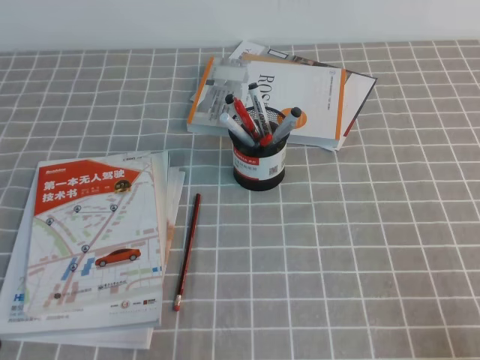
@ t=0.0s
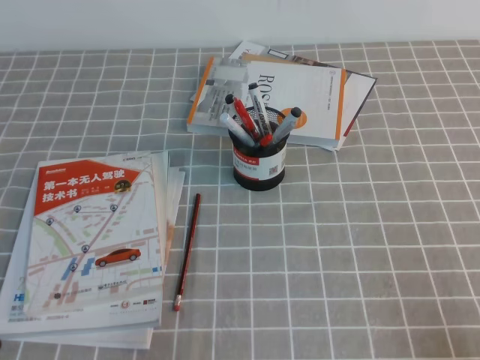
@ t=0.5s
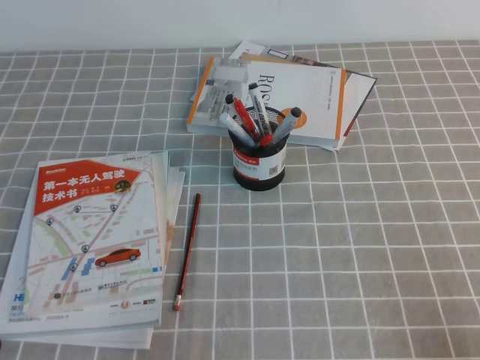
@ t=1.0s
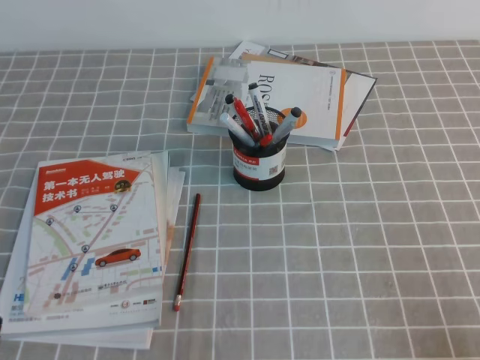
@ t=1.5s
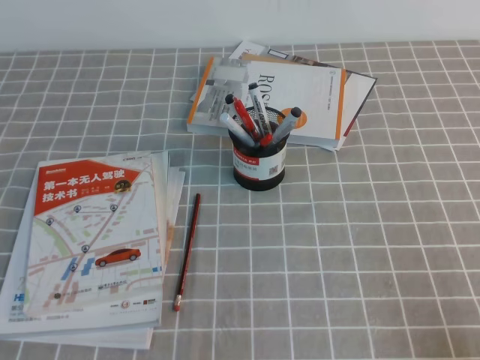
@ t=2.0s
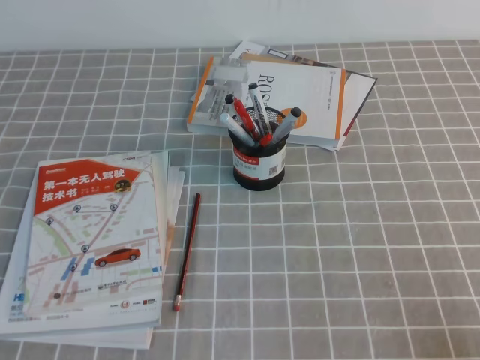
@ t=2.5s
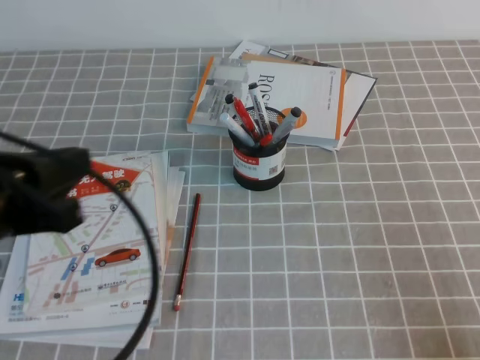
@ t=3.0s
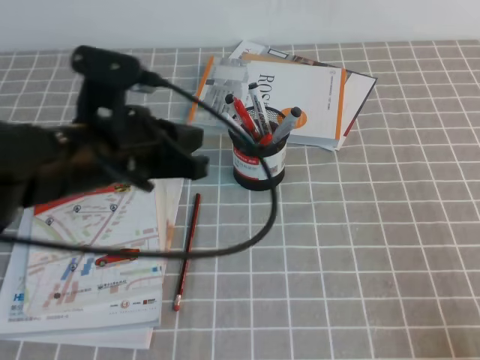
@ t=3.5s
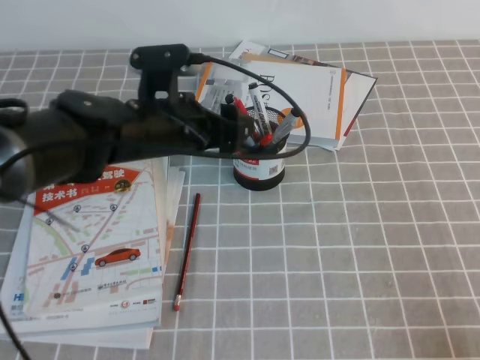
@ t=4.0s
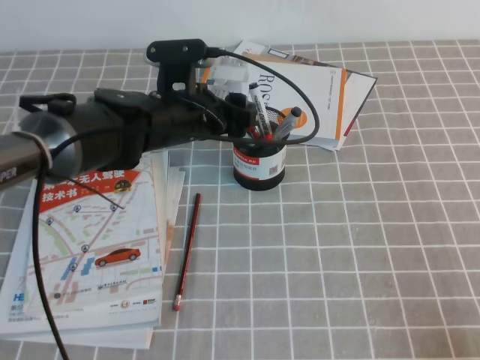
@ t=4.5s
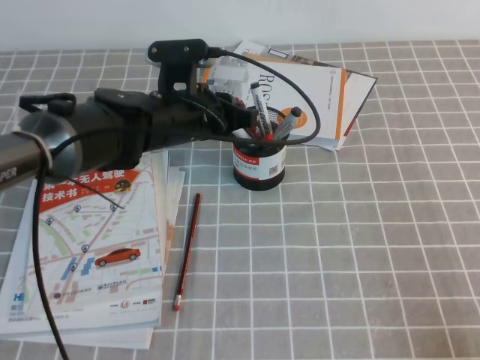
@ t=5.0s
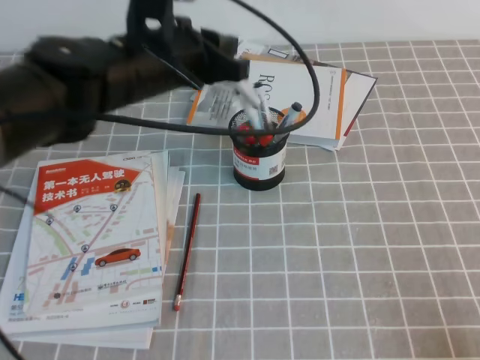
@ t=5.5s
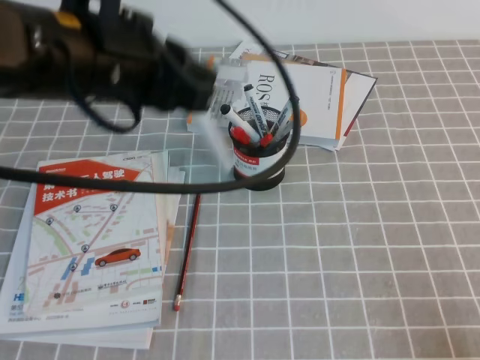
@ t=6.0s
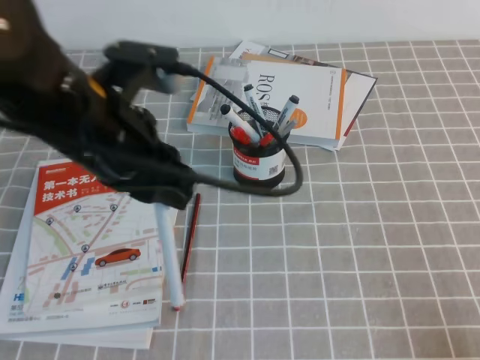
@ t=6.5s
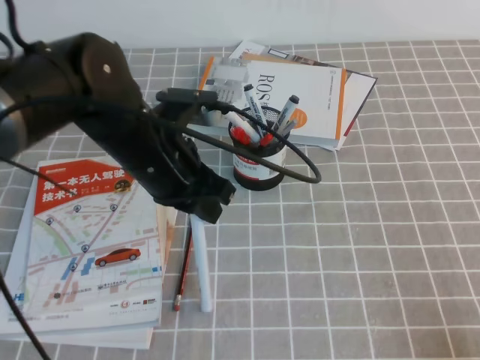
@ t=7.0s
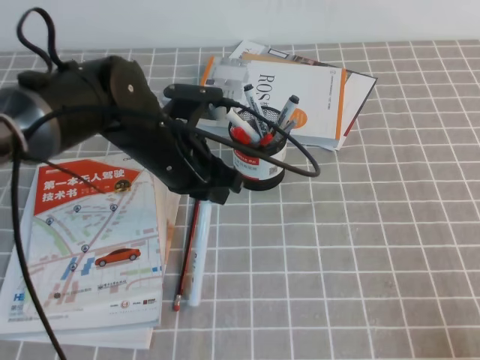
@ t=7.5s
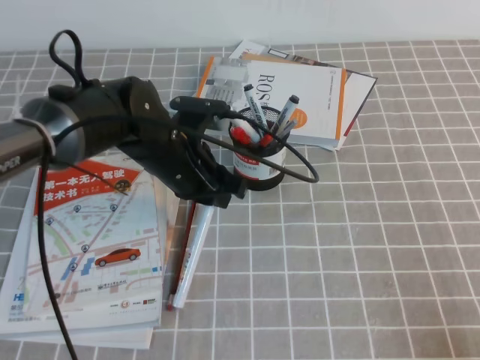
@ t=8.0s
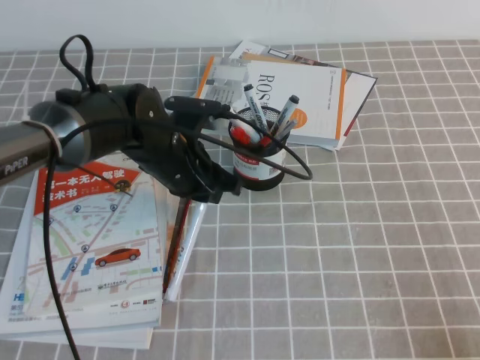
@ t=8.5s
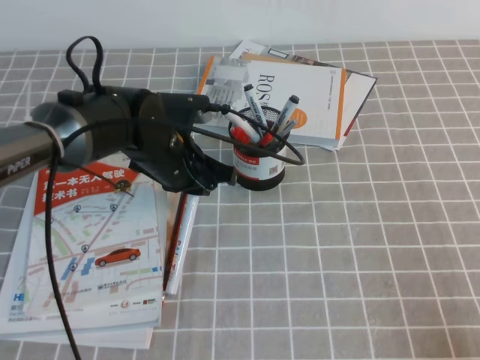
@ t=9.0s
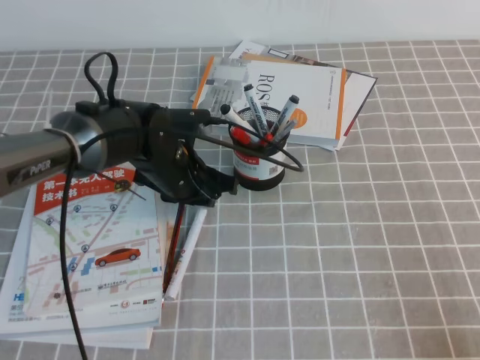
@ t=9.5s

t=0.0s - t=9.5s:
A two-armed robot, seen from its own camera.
Step, t=0.0s - t=3.0s: Pick up the pen with the left gripper.
Step, t=3.5s - t=5.5s: Place the pen on the table with the left gripper.
t=2.0s - t=4.0s: The left gripper goes some 35 cm forward and to the right, and opens up.
t=4.0s - t=5.5s: The left gripper is displaced upward by roughly 5 cm, and closes its fingers.
t=5.5s - t=7.5s: The left gripper is displaced downward by some 10 cm.
t=7.5s - t=9.5s: The left gripper travels downward by some 5 cm.

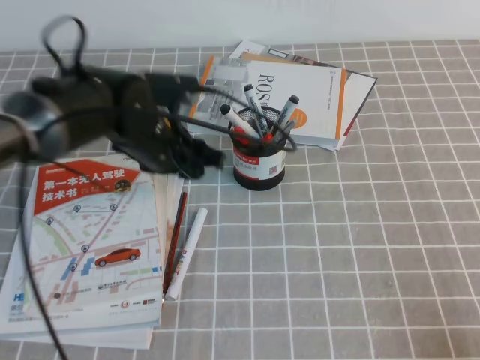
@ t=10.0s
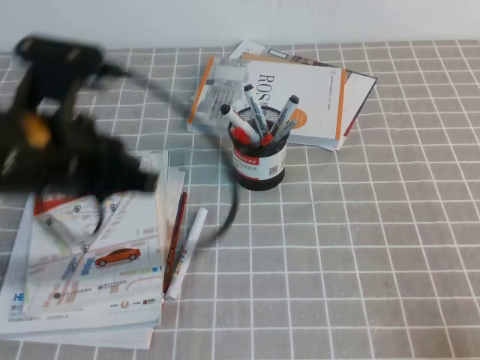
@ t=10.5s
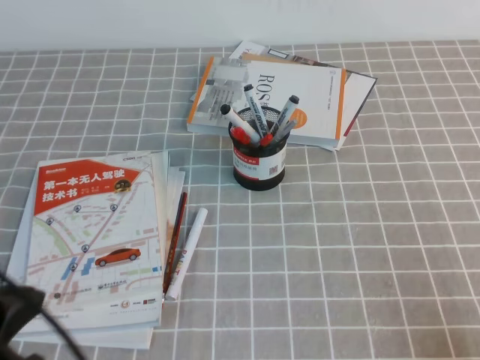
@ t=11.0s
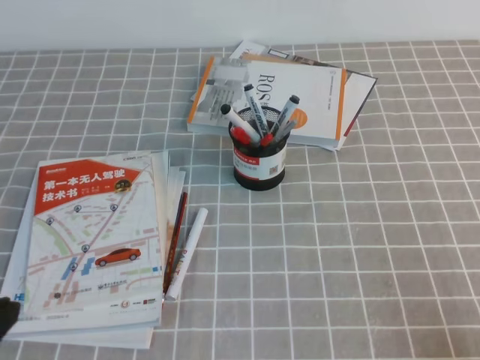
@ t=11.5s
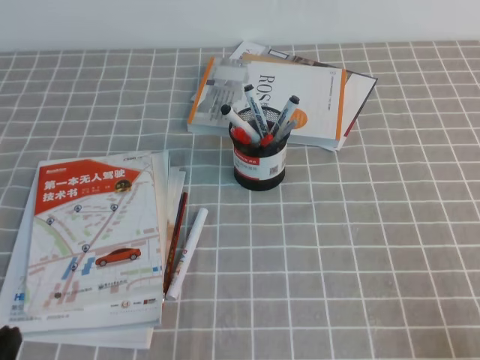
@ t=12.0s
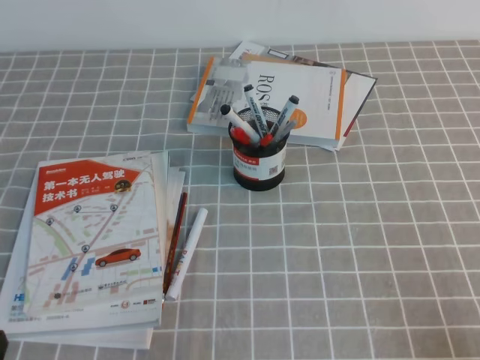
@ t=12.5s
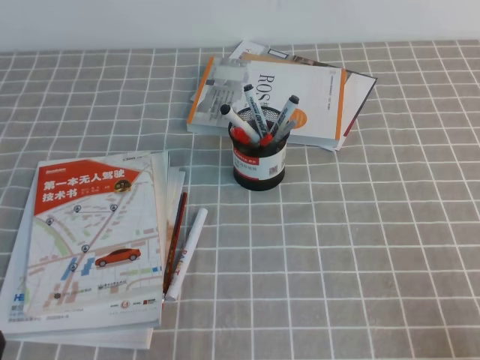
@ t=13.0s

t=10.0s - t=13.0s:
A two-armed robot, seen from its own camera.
t=10.0s - t=11.5s: The left gripper is displaced backward and to the left by about 35 cm, and closes its fingers.
t=11.5s - t=13.0s: The left gripper heads downward, covering approximately 10 cm.
